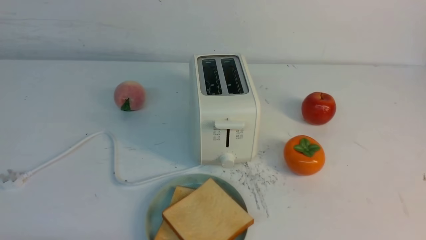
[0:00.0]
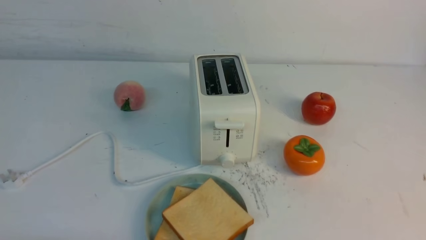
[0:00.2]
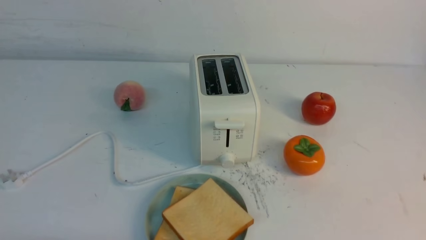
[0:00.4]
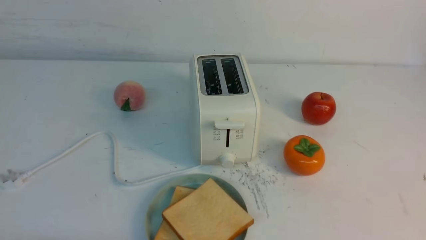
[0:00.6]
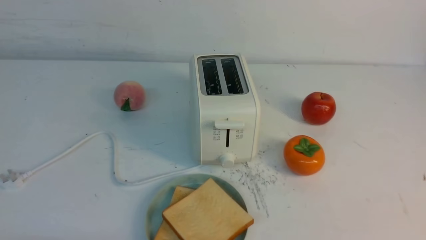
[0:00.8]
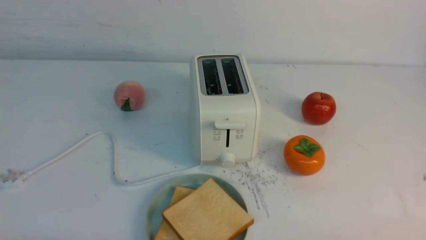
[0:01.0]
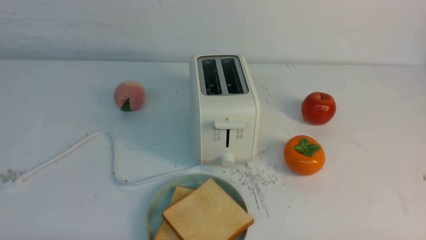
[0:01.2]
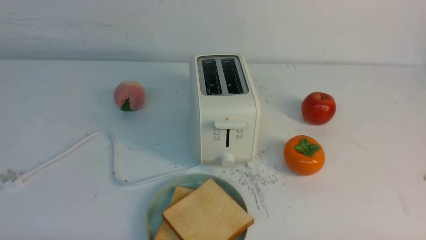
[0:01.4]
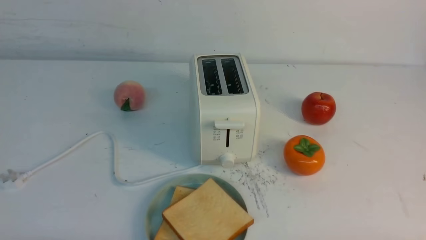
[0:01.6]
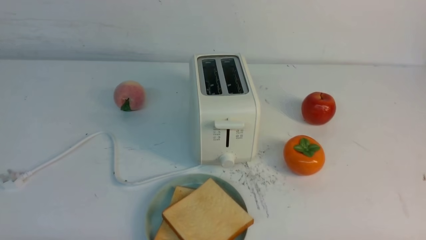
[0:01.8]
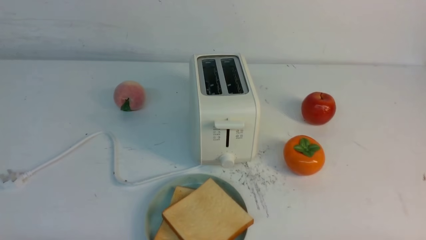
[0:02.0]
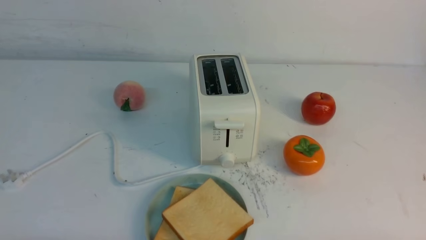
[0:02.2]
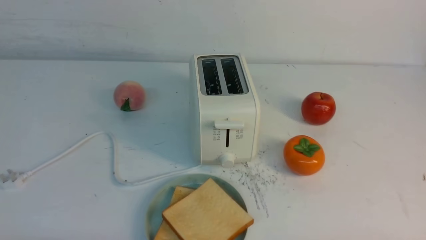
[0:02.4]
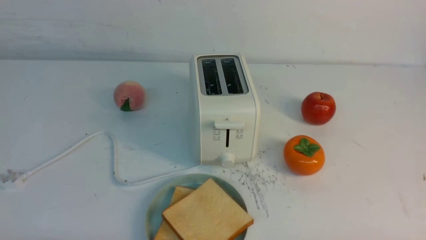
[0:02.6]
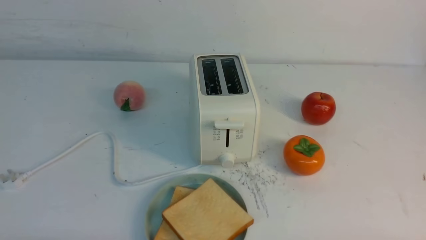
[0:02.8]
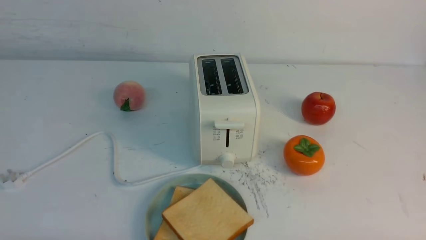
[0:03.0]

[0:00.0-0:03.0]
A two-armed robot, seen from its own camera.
Task of the whole recording: take toasted bread from bread machine on white table place on plate.
0:01.6 to 0:03.0: The two grippers keep their place.
